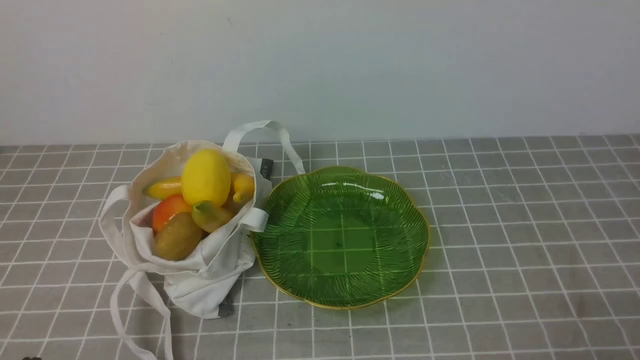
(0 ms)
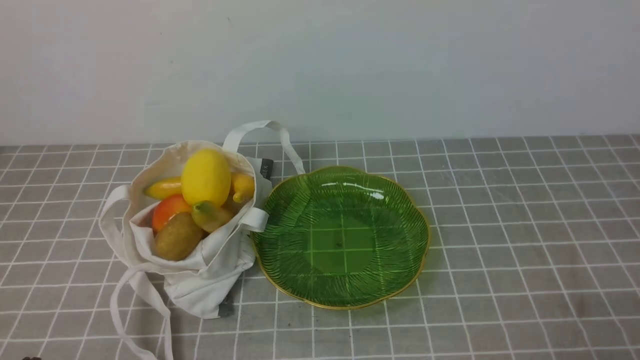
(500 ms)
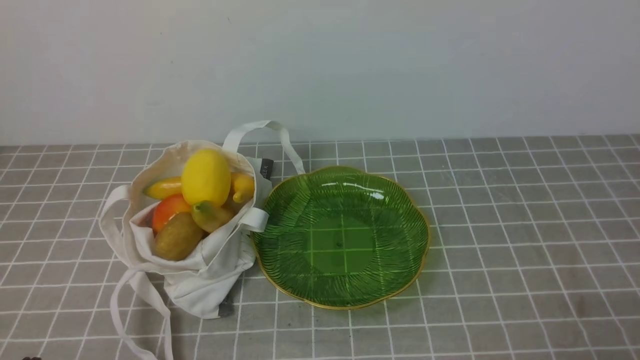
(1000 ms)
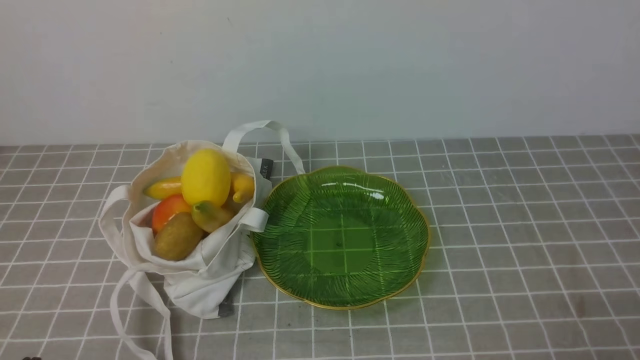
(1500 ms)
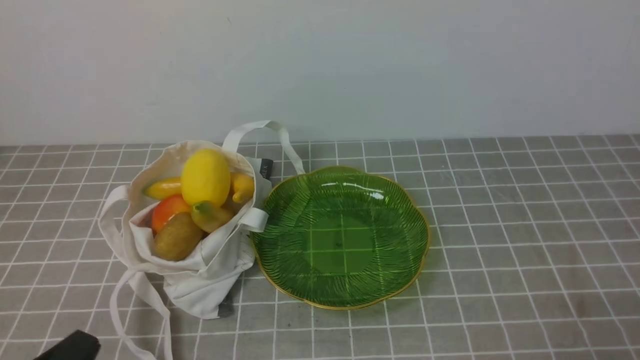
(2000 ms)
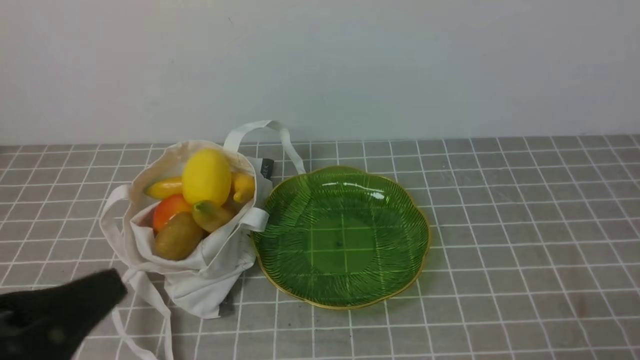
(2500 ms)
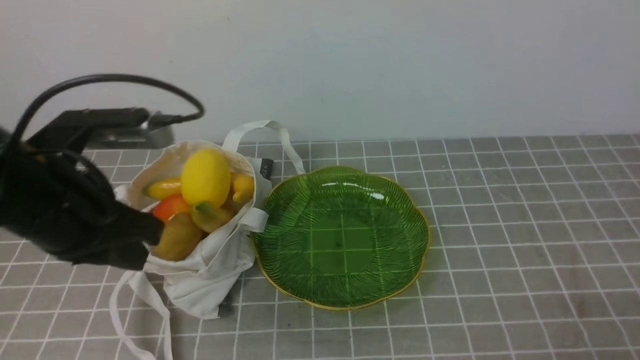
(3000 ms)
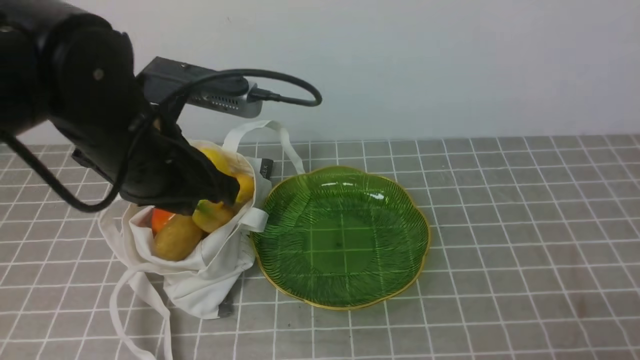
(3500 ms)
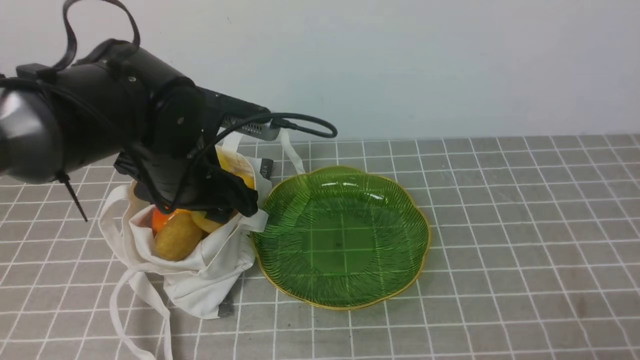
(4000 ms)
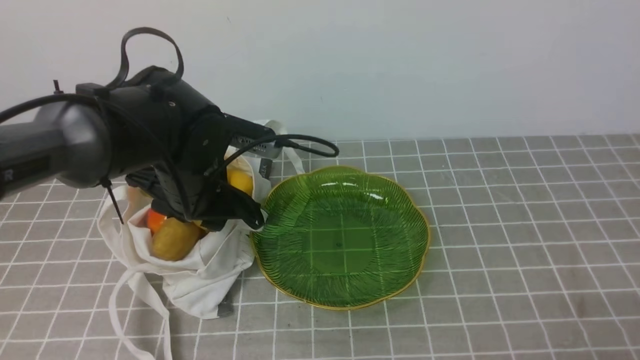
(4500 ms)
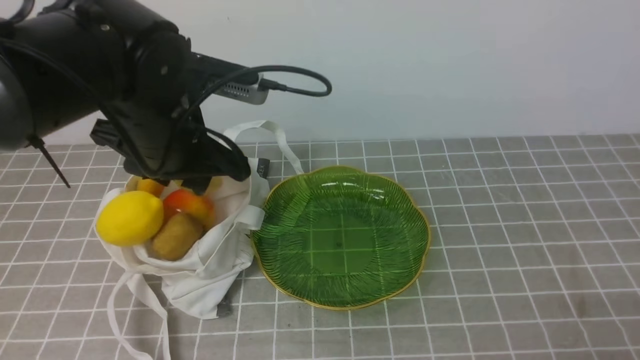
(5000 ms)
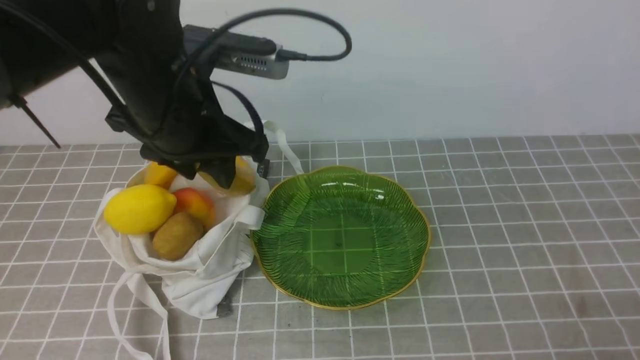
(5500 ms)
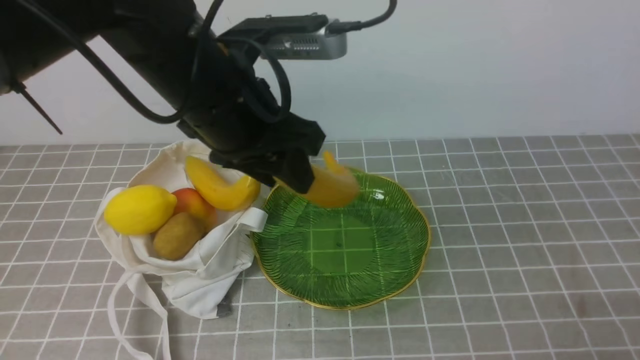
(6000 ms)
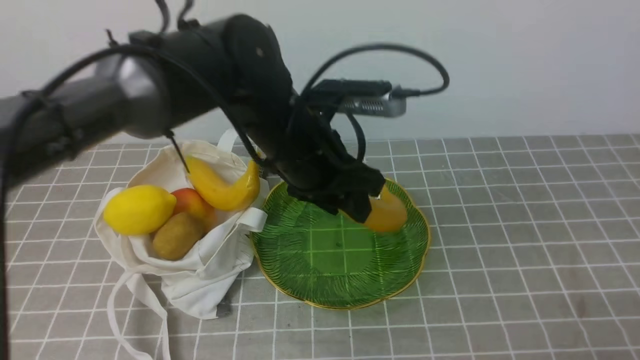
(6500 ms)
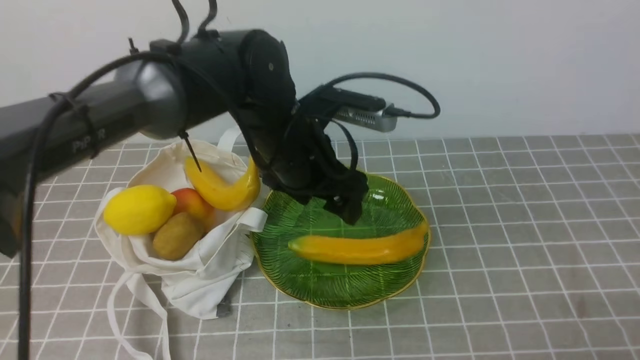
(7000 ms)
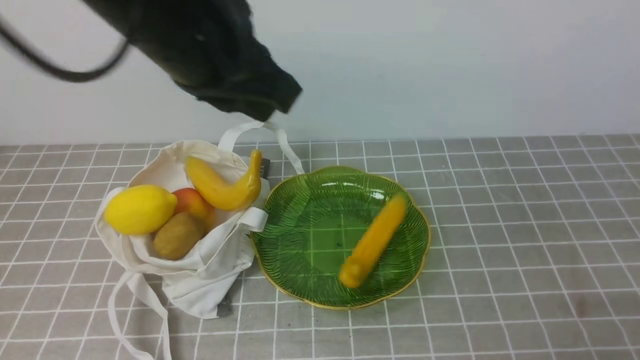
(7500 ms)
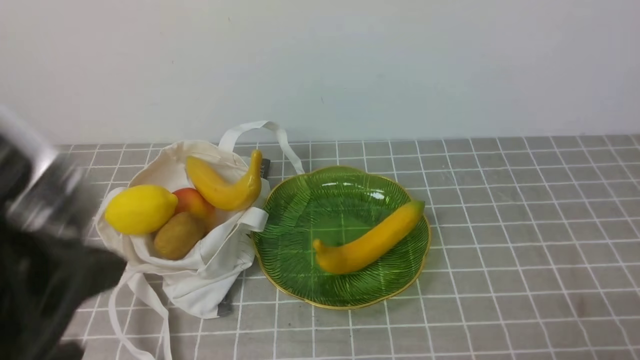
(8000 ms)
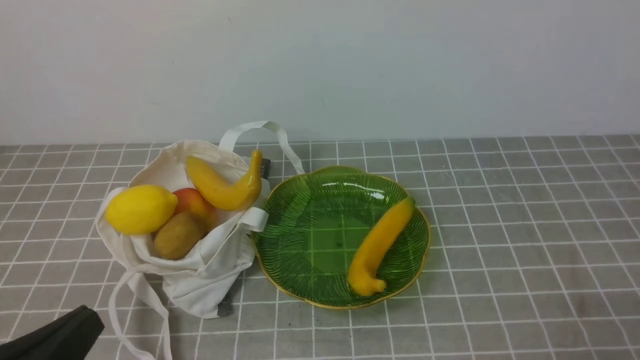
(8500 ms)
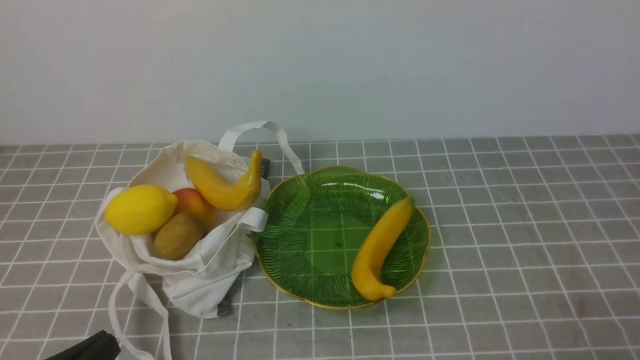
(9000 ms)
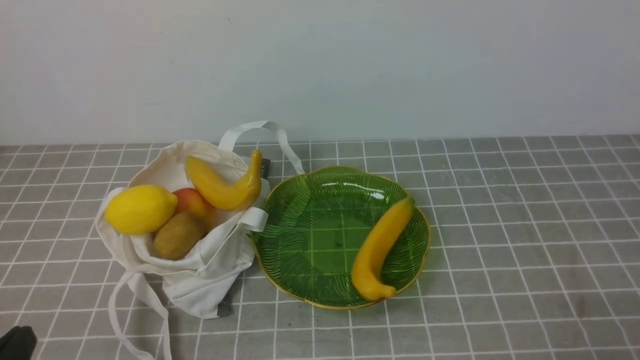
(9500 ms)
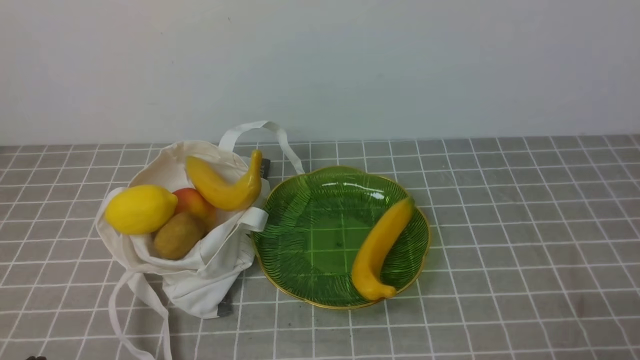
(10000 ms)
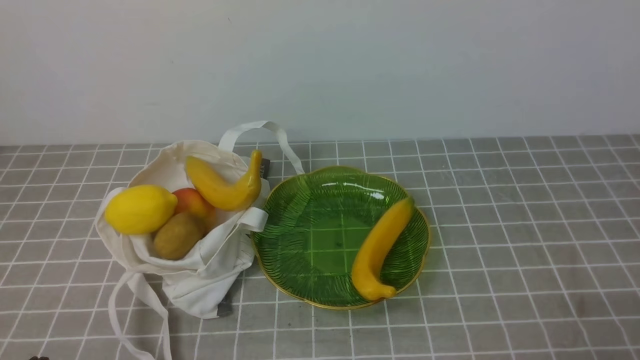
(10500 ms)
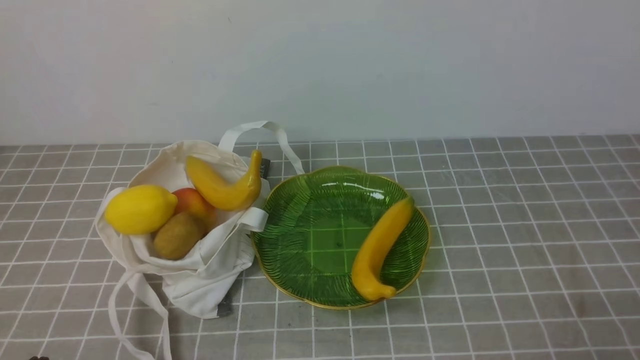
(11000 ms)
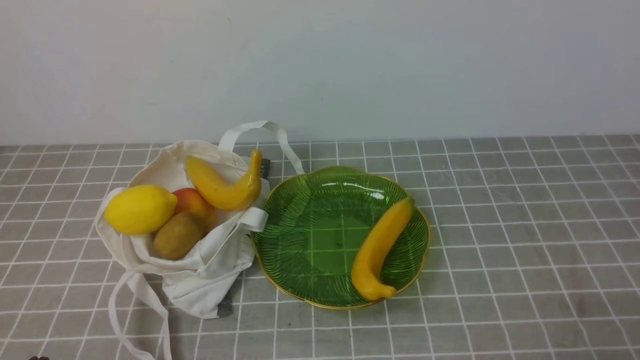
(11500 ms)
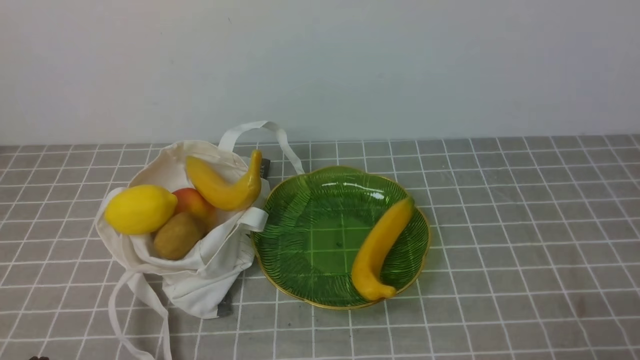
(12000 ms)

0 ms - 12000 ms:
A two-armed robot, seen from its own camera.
Step, 0 ms - 5500 ms: use the left arm to grab a banana from the bag.
Step, 6000 ms - 6500 ms: use the left arm to put the banana into the empty plate on the right.
2000 ms - 4000 ms: The left gripper travels forward by approximately 25 cm, and opens.
4000 ms - 6000 ms: The left gripper shifts about 10 cm upward.
6000 ms - 8000 ms: The left gripper moves backward and to the left, approximately 20 cm, and closes.
8000 ms - 10000 ms: The left gripper travels downward by approximately 25 cm.
10000 ms - 12000 ms: Both grippers stay put.

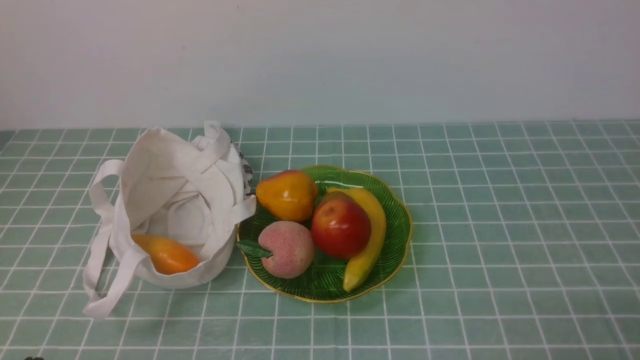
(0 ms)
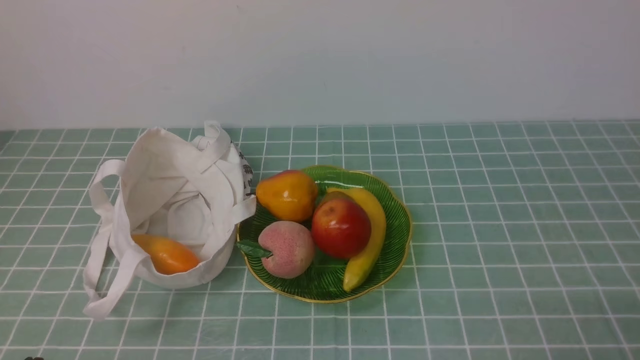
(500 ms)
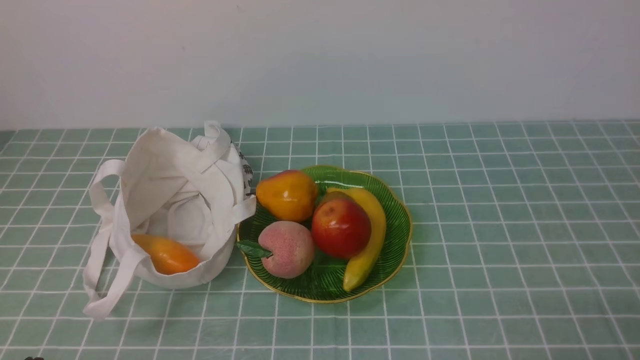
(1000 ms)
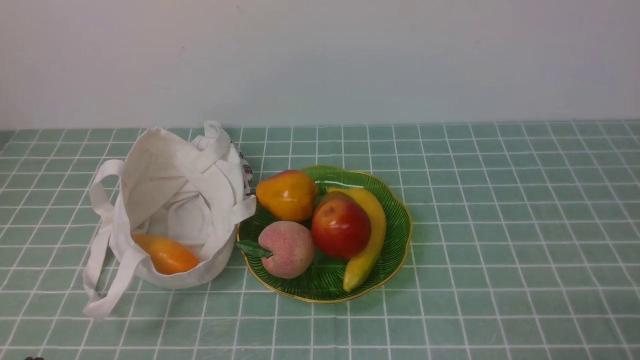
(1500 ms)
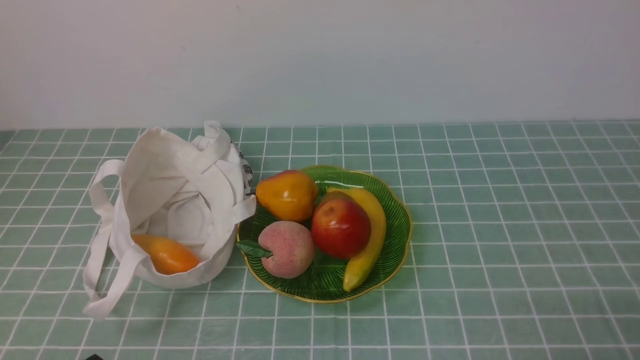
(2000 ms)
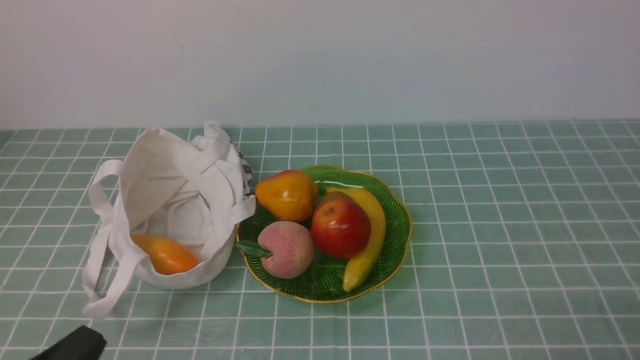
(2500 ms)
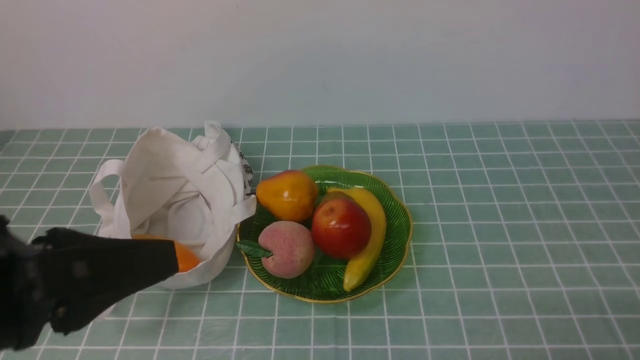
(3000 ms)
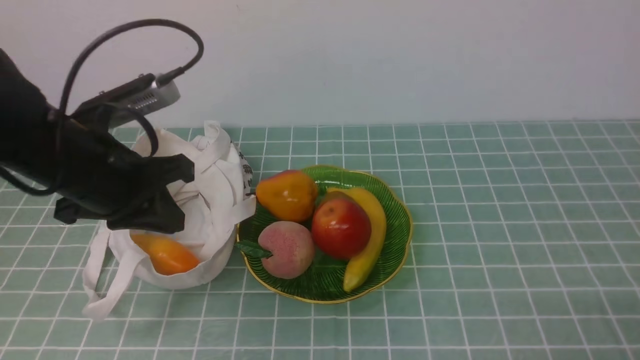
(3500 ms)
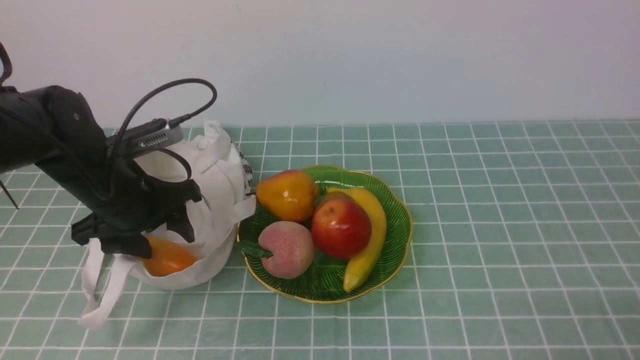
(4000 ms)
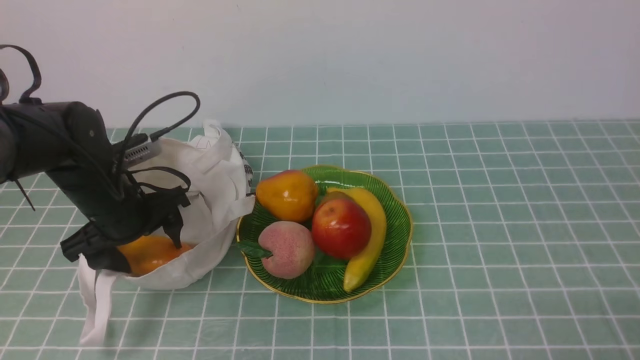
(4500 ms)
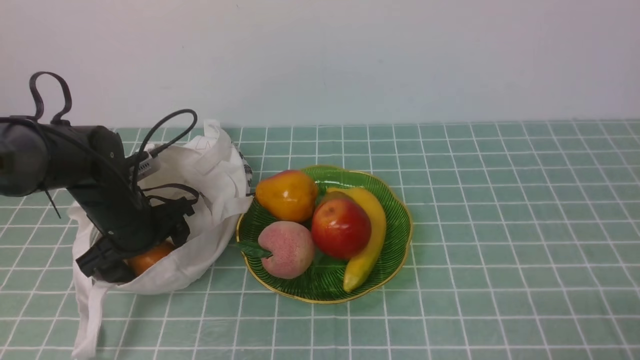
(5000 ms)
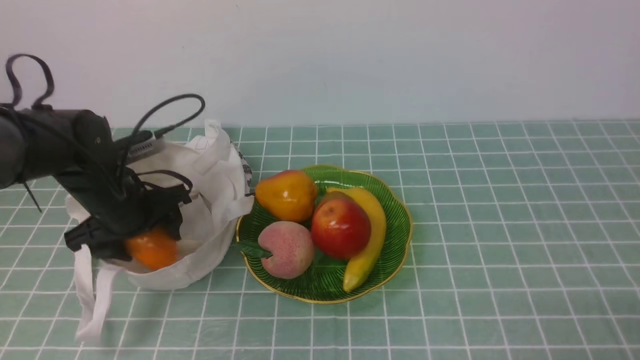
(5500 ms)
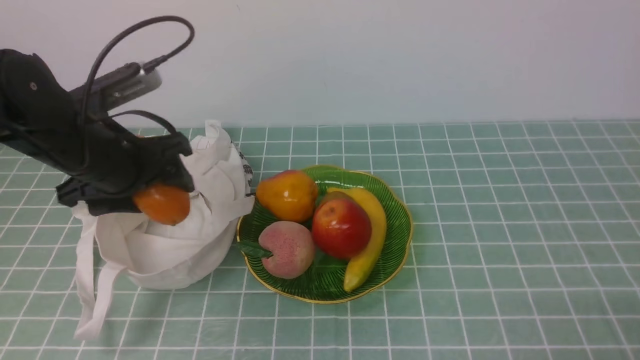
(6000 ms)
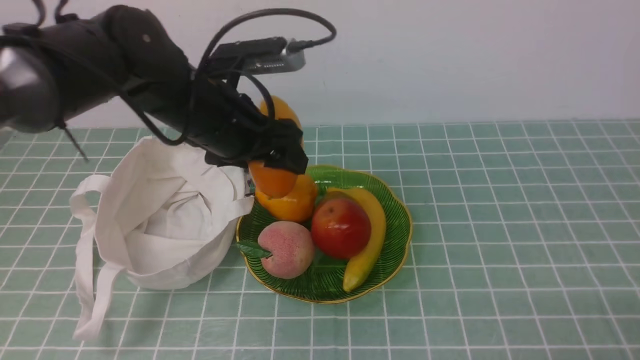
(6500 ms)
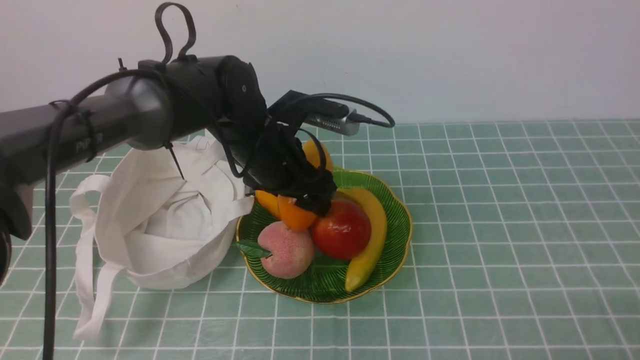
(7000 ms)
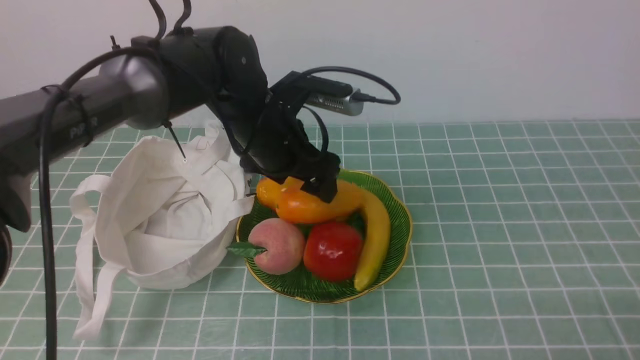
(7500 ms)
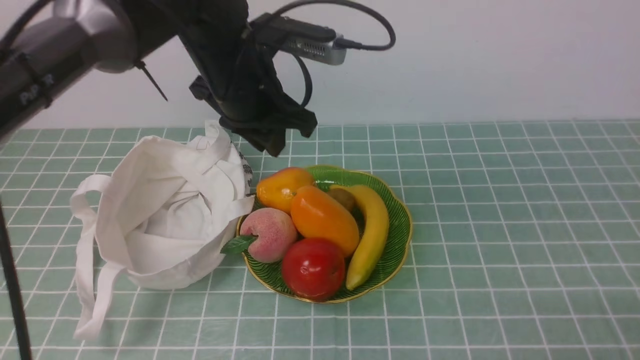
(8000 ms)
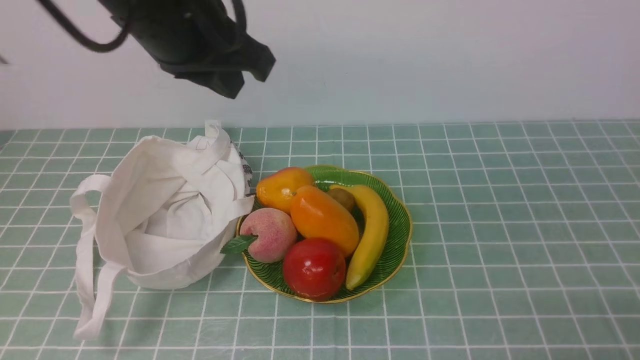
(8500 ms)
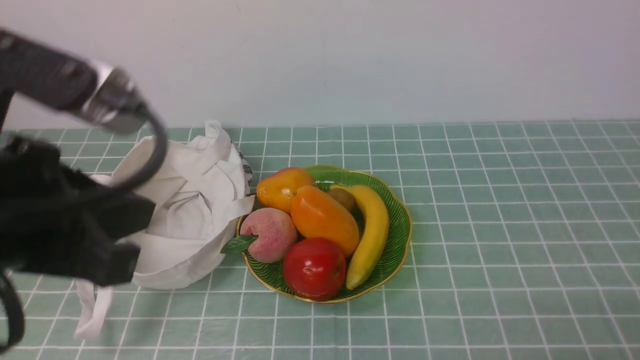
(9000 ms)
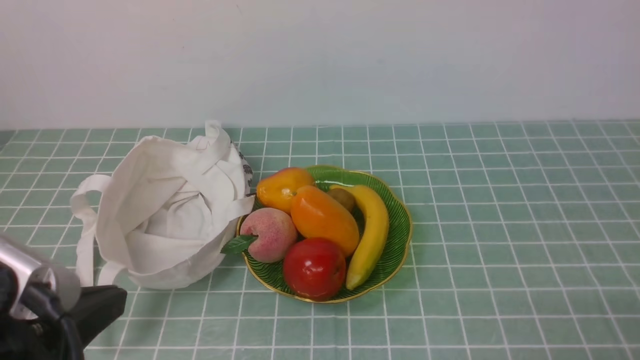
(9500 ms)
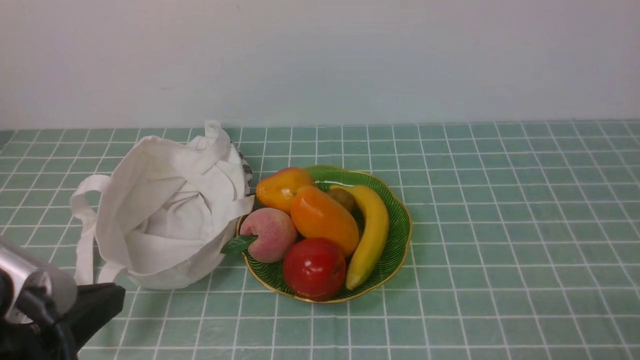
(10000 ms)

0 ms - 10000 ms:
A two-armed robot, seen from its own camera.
Step, 0 ms - 5000 ms: use the left arm to grab a mango from the bag.
Step, 5500 ms - 7000 ms: use the left arm to put the mango into the empty plate on the right.
2000 ms - 4000 ms: The left gripper heads forward, covering roughly 30 cm, and opens its fingers.
4000 ms - 6000 ms: The left gripper goes downward and returns, approximately 5 cm each way.
6000 ms - 8000 ms: The left gripper heads to the right and upward, covering roughly 15 cm.
8000 ms - 10000 ms: The left gripper moves backward and to the left, some 30 cm, and closes up.
